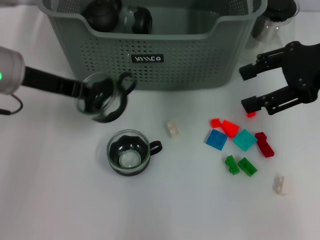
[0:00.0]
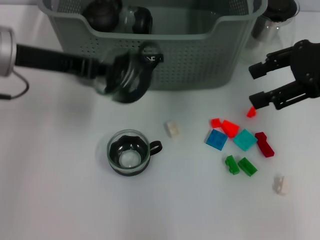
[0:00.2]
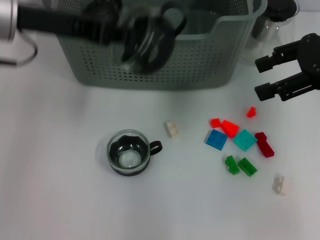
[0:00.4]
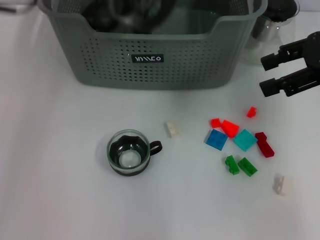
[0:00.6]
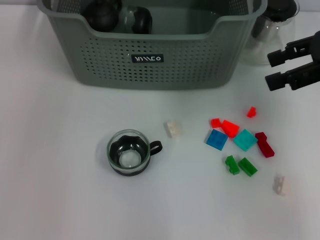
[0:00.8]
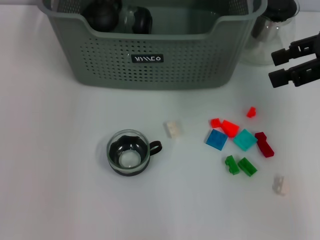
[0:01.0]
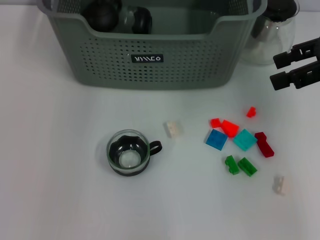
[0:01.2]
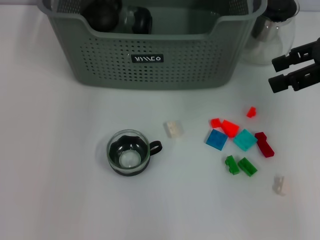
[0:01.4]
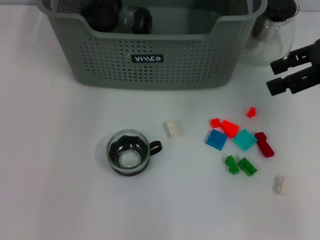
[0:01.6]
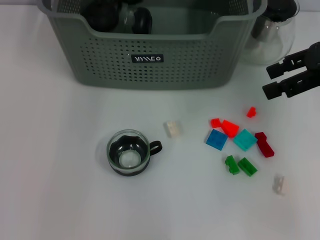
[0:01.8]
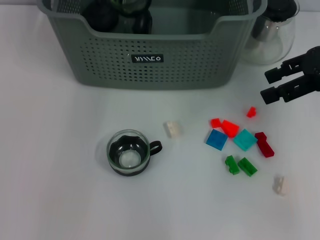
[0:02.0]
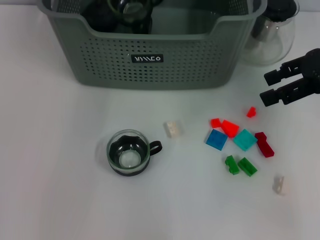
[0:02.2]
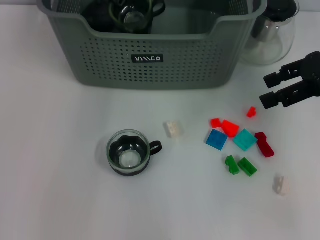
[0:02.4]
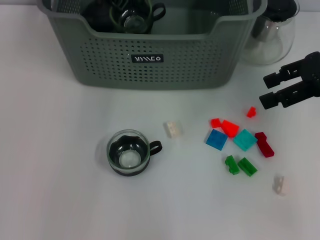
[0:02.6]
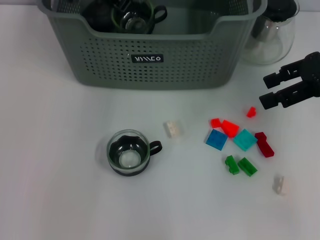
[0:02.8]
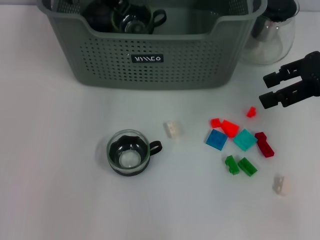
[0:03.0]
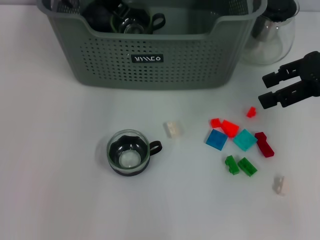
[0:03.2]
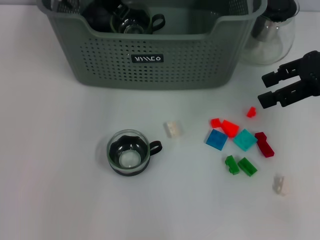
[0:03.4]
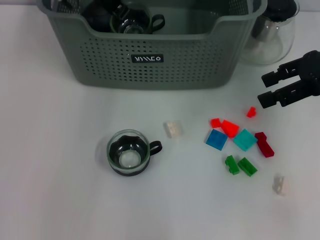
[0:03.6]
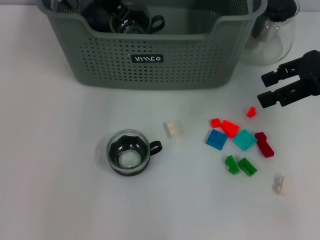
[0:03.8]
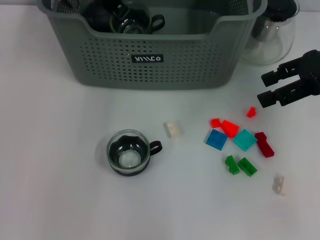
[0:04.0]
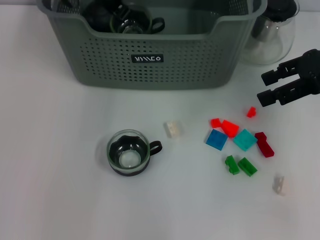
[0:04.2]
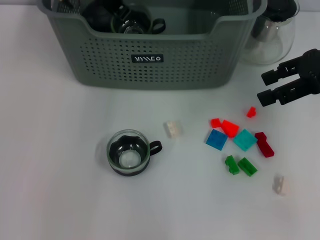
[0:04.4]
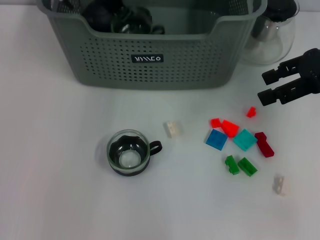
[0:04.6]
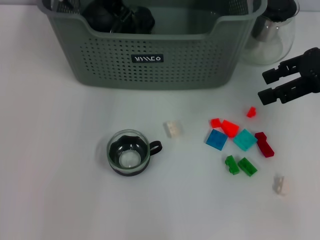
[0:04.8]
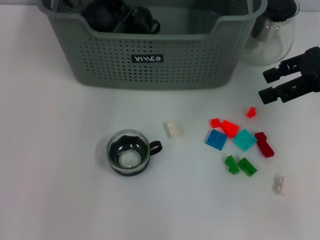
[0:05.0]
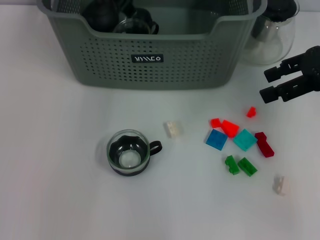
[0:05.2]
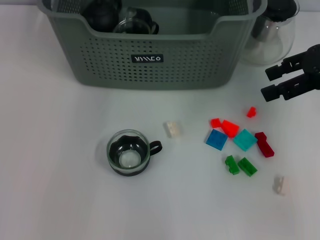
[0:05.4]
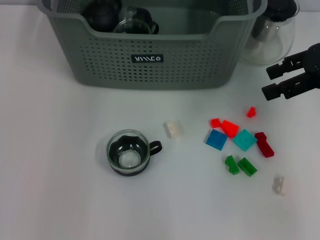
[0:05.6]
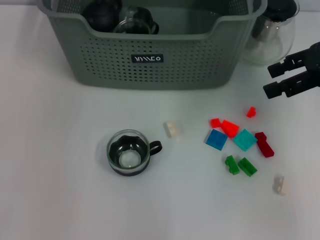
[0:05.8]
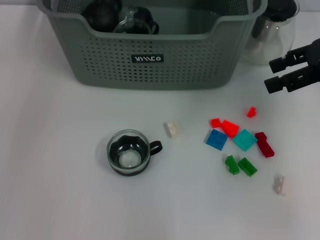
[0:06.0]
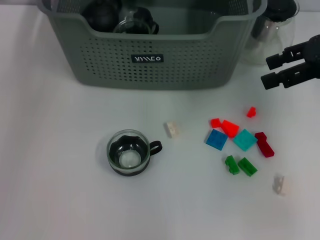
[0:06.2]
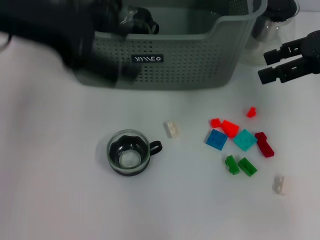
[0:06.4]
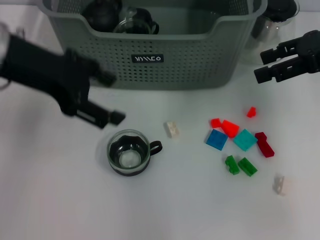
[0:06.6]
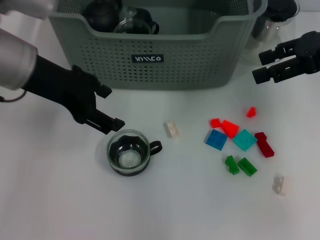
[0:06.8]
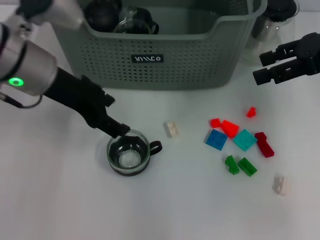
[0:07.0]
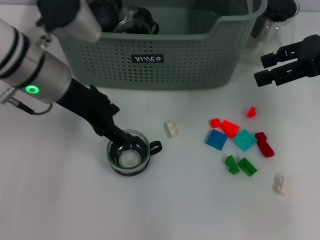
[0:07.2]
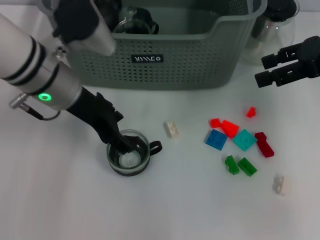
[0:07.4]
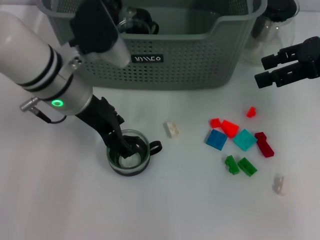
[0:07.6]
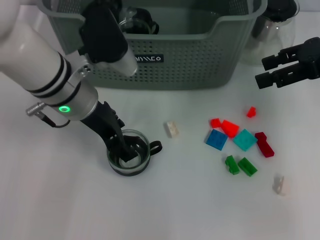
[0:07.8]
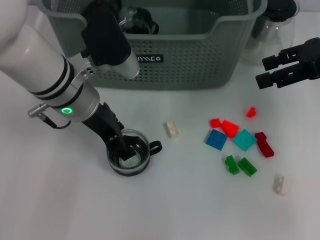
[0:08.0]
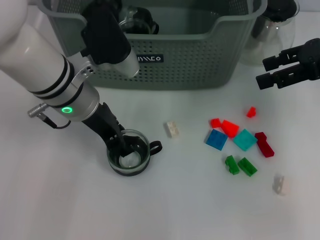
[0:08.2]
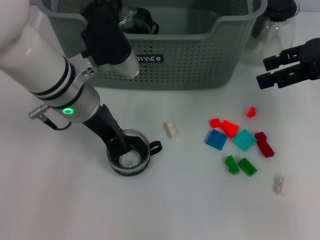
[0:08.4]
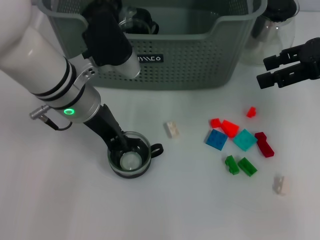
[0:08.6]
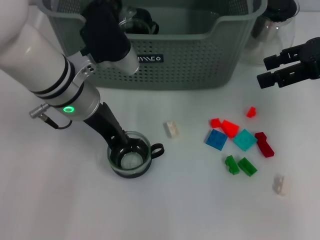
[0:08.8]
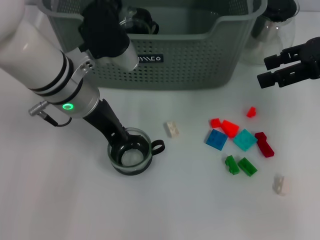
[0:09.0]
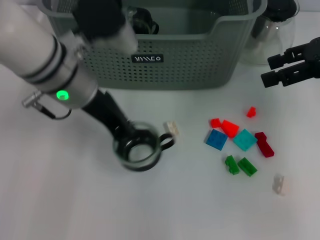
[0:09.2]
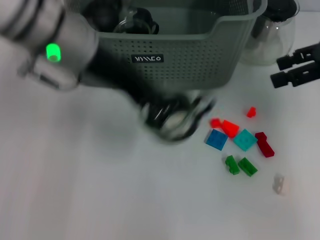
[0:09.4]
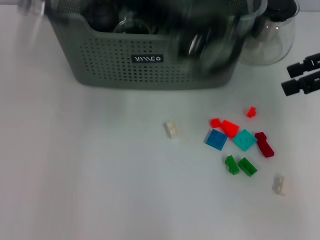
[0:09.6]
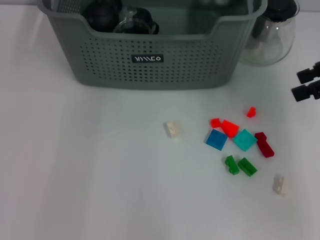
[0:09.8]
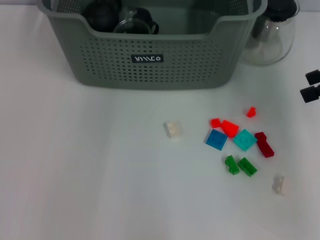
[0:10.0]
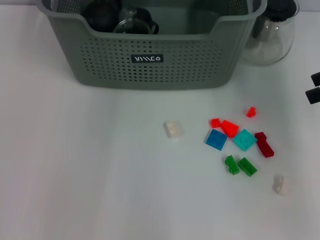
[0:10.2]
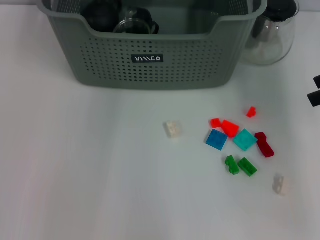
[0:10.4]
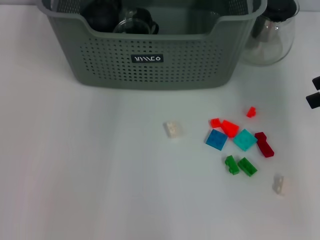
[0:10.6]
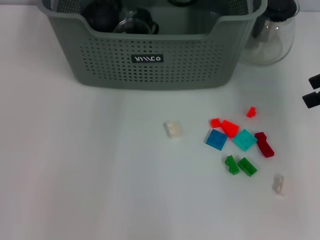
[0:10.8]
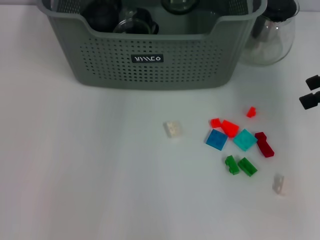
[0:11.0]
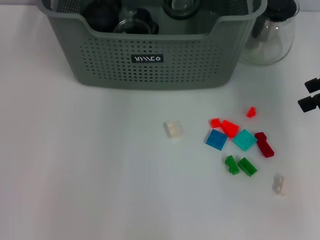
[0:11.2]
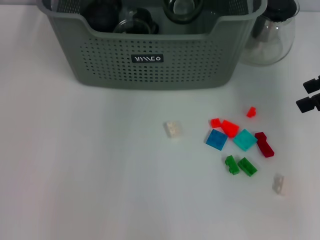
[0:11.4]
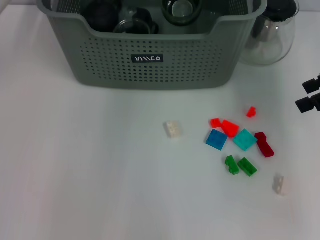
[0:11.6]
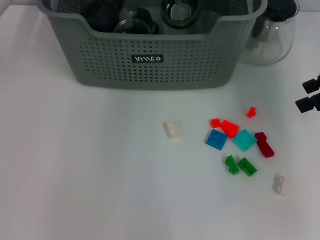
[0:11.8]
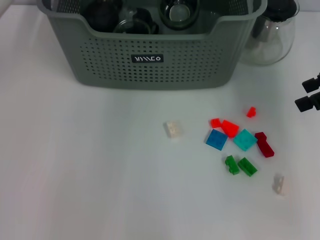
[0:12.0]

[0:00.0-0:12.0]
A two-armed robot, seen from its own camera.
Task of the whole recording: pick up the teacup on the table and place it into the storage bin, pick up the block on the table and place it into the storage bin.
Step, 0:00.0 to 0:04.6: Place the cup in the storage box with left gripper.
Step, 0:04.8 to 0:08.6: Grasp the cup with left gripper.
0:00.0 to 0:01.6: The left gripper moves forward, upward and to the right, some 20 cm.
0:03.0 to 0:04.4: Both grippers stay about where they are.
0:04.4 to 0:06.0: The left gripper moves upward, backward and to the left, roughly 15 cm, and opens up.
0:06.0 to 0:07.6: The left gripper heads downward, covering some 20 cm.
0:07.6 to 0:09.0: The left gripper closes its fingers.
0:09.0 to 0:10.4: The left gripper moves upward and forward, roughly 20 cm. The right gripper is displaced to the right by approximately 5 cm.
0:10.4 to 0:12.0: The left gripper goes about 10 cm downward.

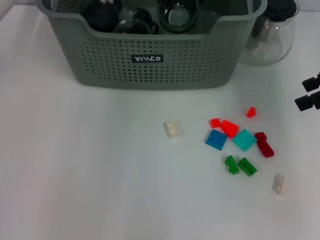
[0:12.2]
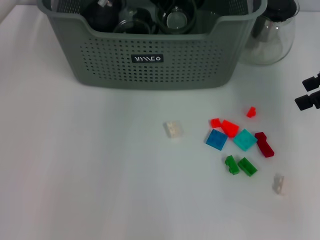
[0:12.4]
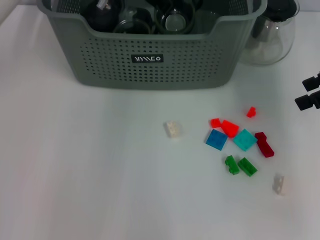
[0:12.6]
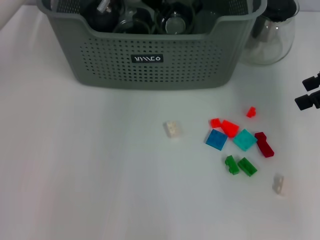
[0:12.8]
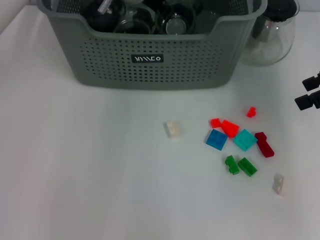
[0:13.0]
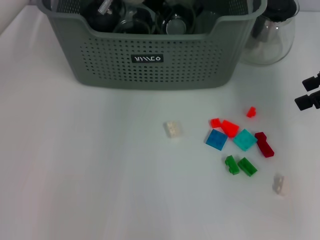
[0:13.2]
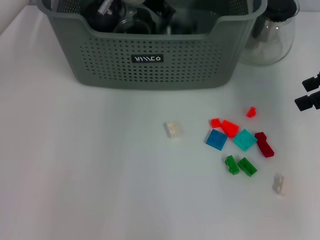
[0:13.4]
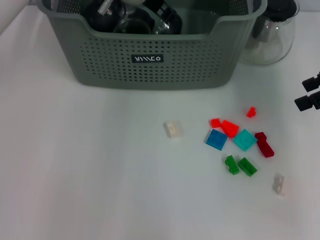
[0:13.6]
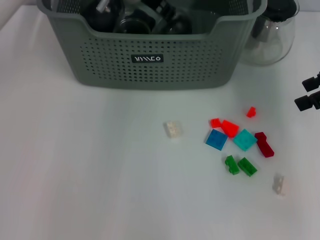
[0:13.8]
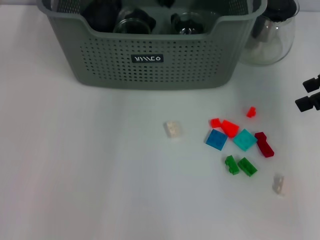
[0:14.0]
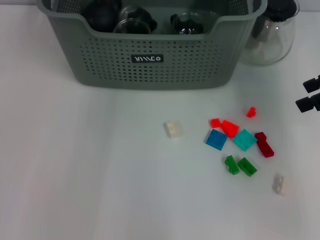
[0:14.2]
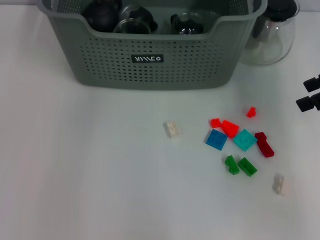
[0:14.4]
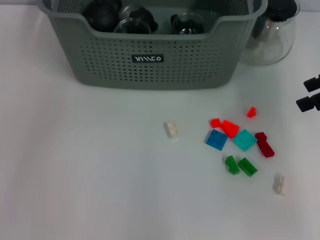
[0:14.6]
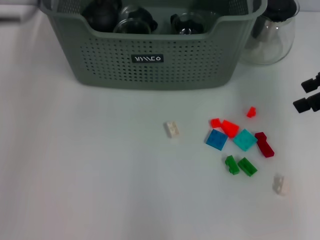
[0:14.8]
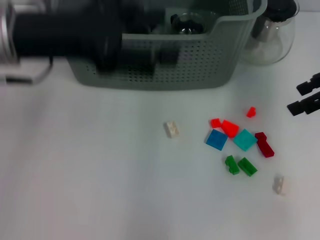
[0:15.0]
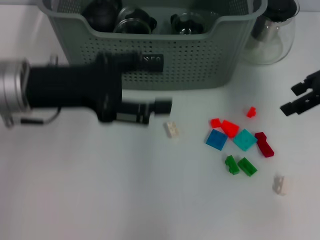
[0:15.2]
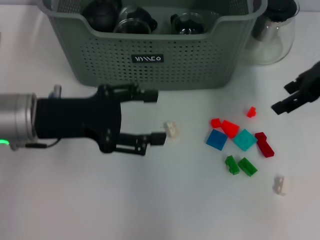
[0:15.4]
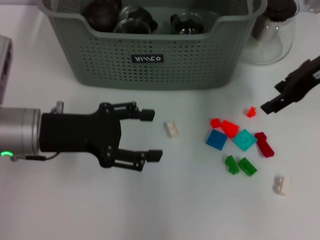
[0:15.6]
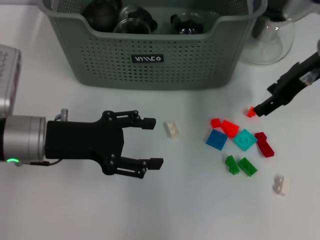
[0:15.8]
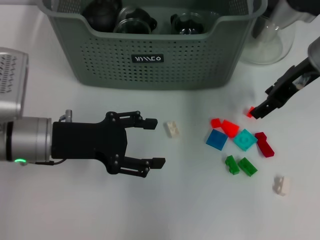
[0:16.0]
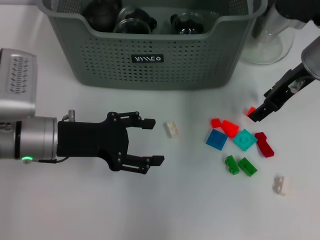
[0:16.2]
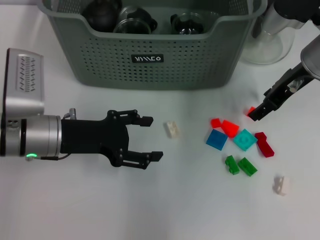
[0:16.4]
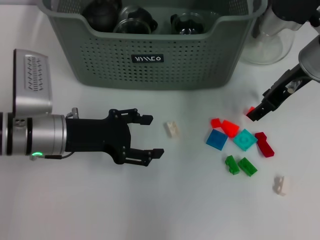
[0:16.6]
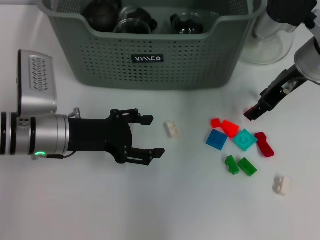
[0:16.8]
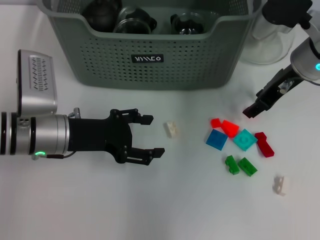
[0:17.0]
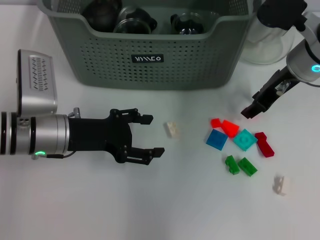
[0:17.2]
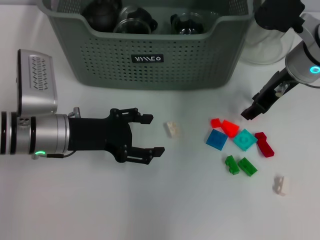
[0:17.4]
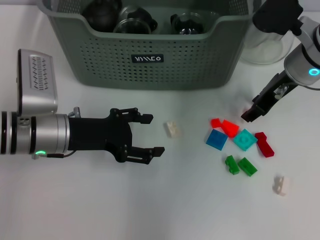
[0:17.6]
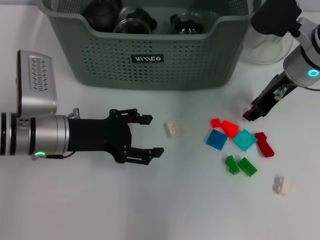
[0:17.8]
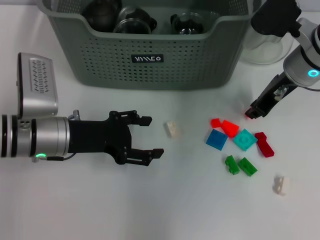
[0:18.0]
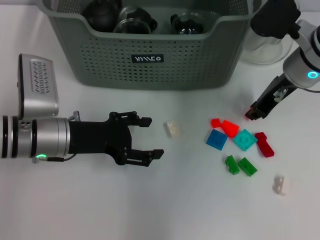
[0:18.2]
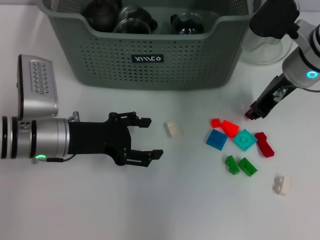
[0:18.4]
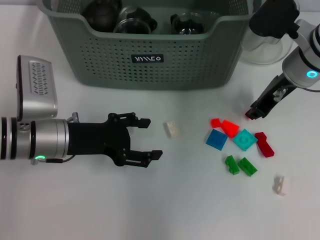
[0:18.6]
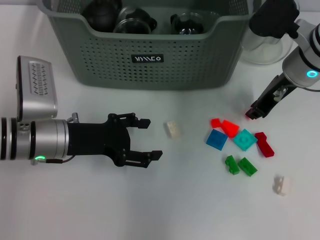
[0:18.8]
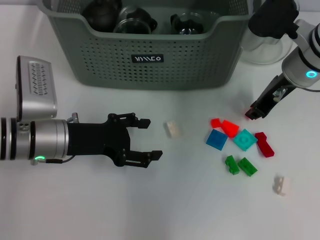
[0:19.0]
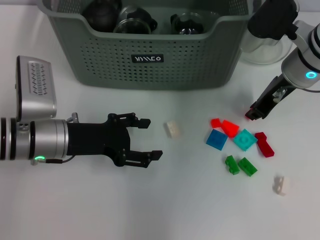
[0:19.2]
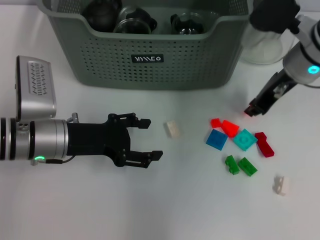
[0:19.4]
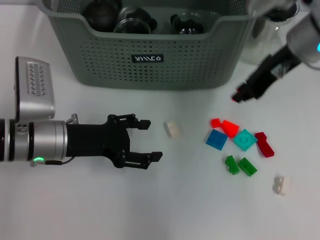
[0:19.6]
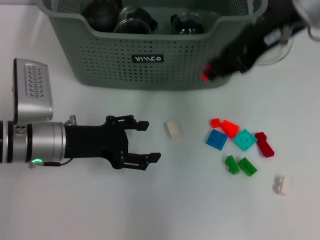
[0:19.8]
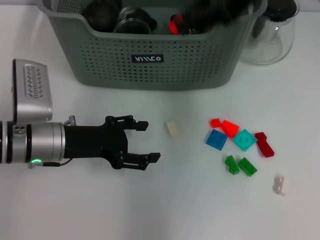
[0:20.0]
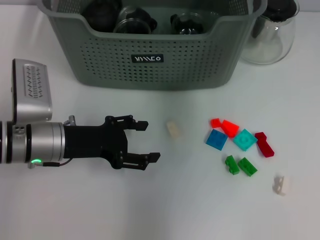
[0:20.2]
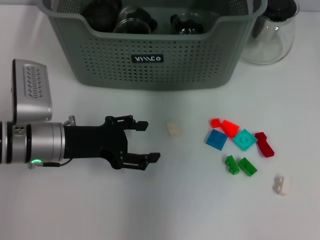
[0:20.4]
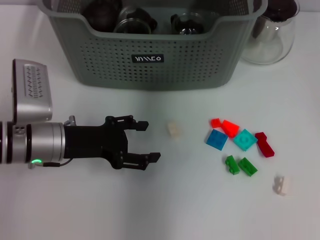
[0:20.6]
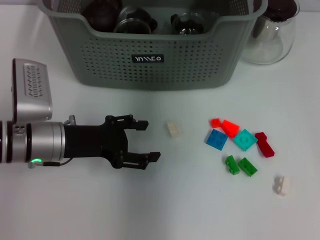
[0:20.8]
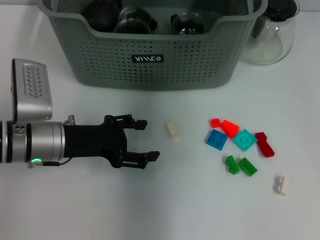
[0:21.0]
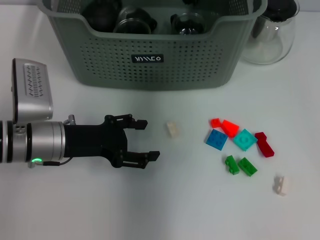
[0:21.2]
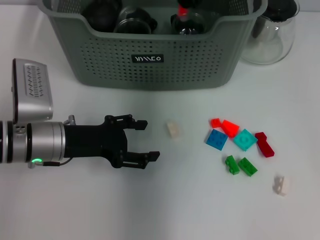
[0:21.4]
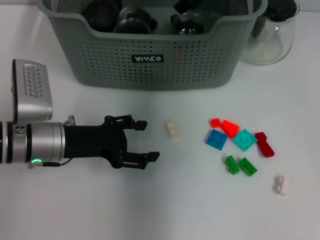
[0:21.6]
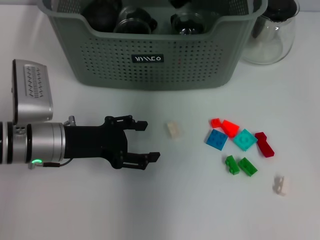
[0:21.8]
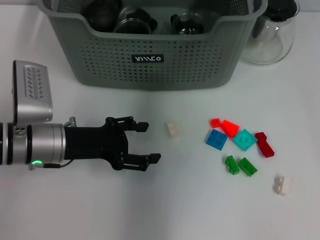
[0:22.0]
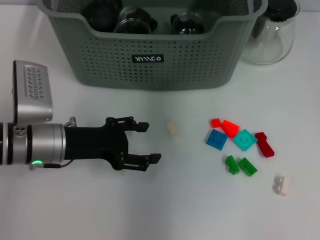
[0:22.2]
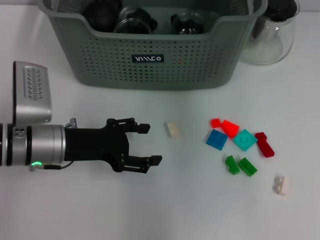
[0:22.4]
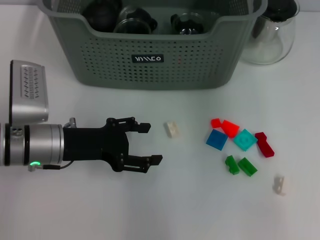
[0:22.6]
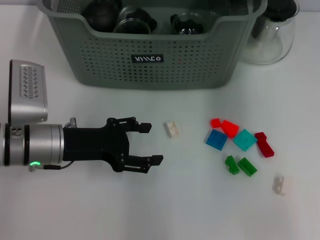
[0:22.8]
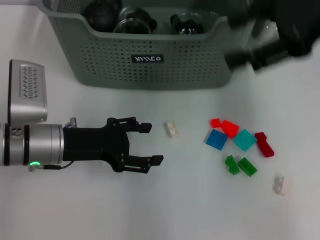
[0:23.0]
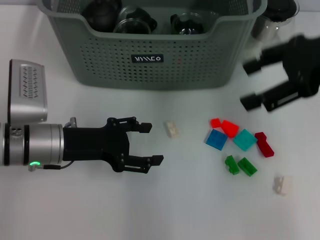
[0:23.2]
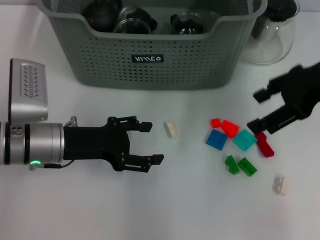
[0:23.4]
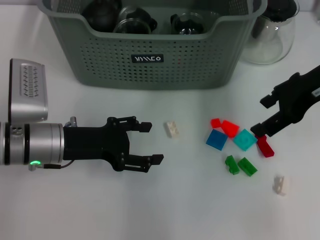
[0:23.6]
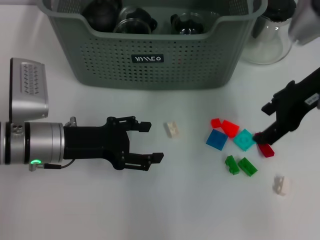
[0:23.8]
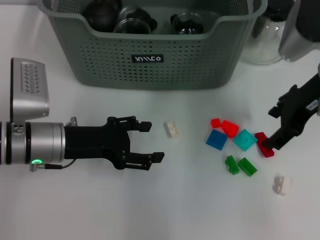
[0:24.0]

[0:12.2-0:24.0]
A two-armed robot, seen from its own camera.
Task of the whole recording: pick up the teacup on the table and place it into the storage bin, pick up the block on the table and place it into the storage bin.
Step, 0:14.0 to 0:19.0: Grasp the orange block with right gripper.
Step, 0:19.4 to 0:21.4: Place the orange block in the storage box with right gripper.
0:12.2 to 0:13.6: The grippers stay close to where they were, moving slightly.
0:13.6 to 0:15.2: The left gripper travels backward and to the left by some 25 cm, and opens.
0:15.2 to 0:16.6: The right gripper heads to the left, covering approximately 10 cm. The left gripper travels downward by roughly 10 cm.
0:16.6 to 0:18.2: The right gripper closes its fingers.
0:18.2 to 0:19.6: The right gripper goes about 5 cm upward.
0:19.6 to 0:21.0: The right gripper travels to the left and forward by some 10 cm, and travels upward and back again, about 15 cm each way.
0:21.0 to 0:22.6: The right gripper shifts approximately 15 cm backward, to the right and upward, and opens up.
0:22.6 to 0:24.0: The right gripper travels downward by roughly 15 cm.
